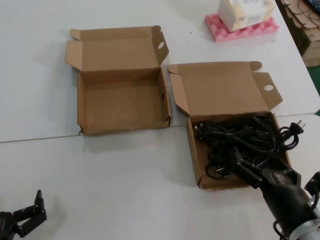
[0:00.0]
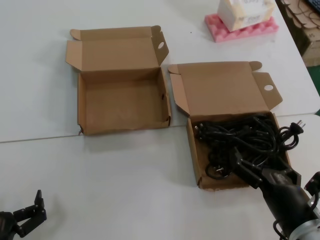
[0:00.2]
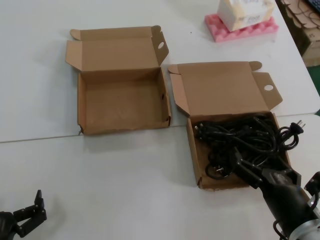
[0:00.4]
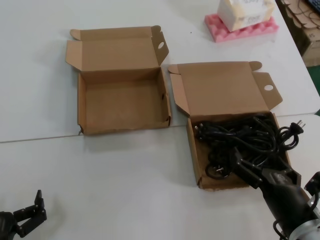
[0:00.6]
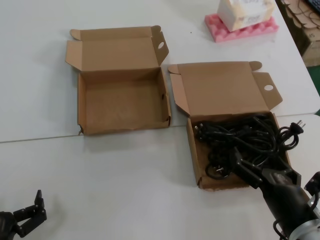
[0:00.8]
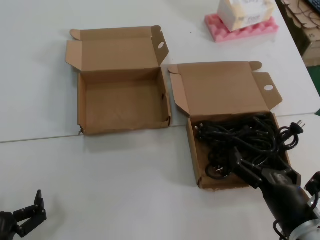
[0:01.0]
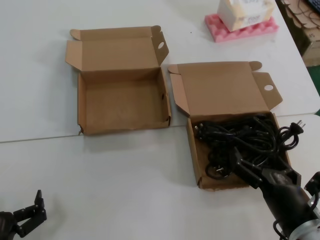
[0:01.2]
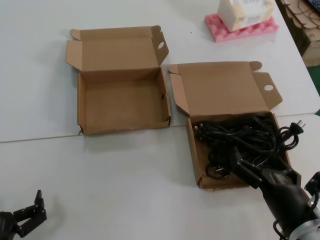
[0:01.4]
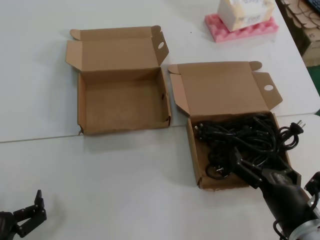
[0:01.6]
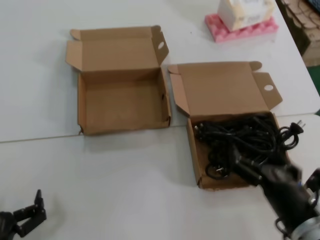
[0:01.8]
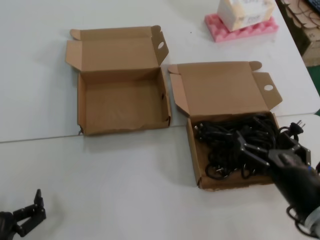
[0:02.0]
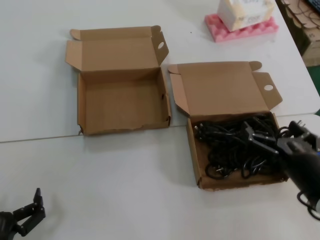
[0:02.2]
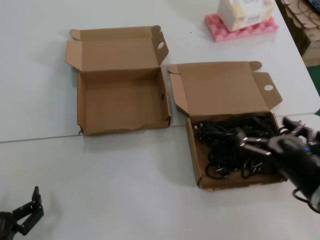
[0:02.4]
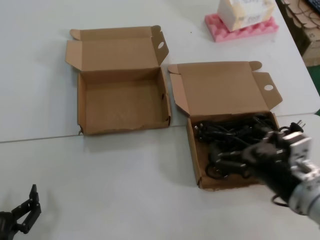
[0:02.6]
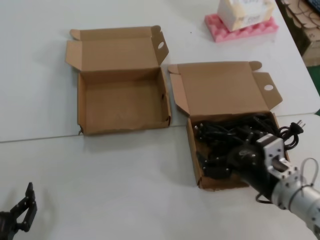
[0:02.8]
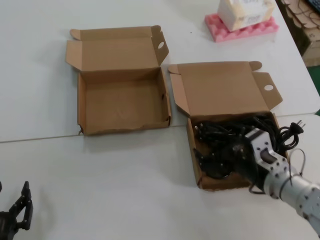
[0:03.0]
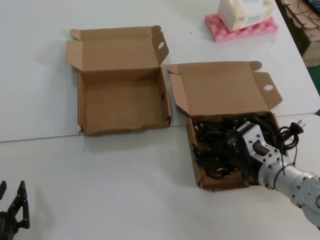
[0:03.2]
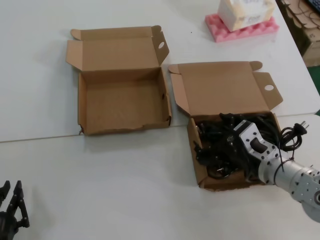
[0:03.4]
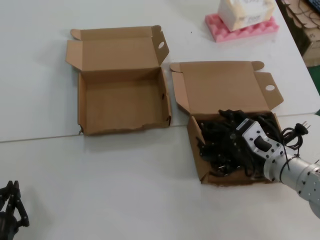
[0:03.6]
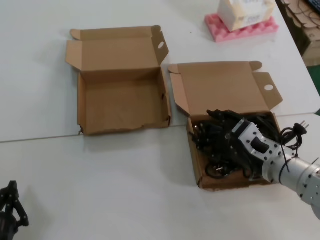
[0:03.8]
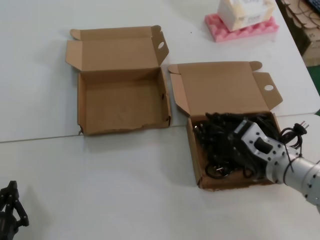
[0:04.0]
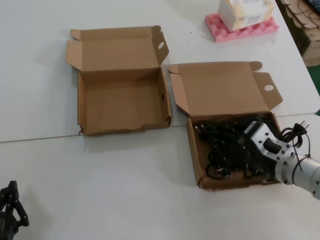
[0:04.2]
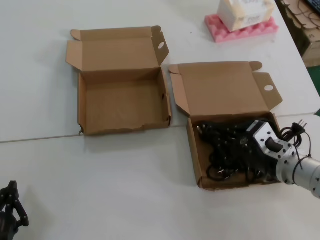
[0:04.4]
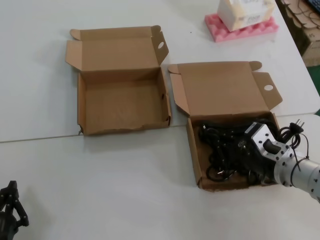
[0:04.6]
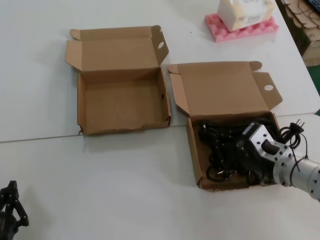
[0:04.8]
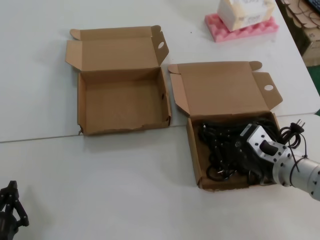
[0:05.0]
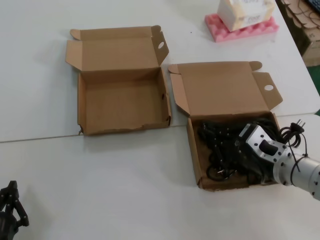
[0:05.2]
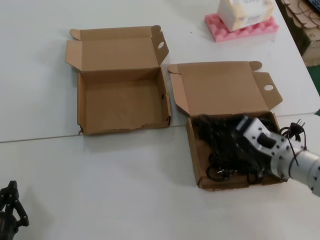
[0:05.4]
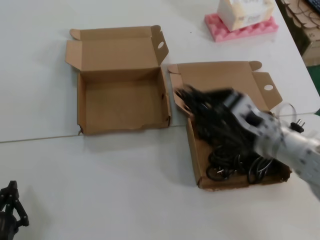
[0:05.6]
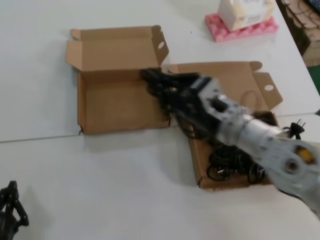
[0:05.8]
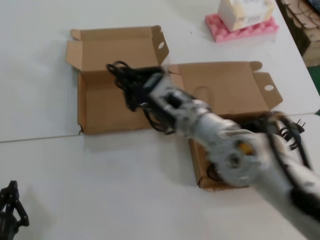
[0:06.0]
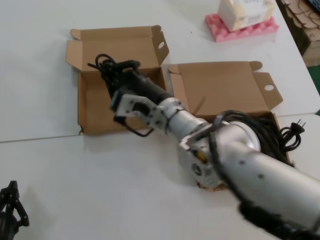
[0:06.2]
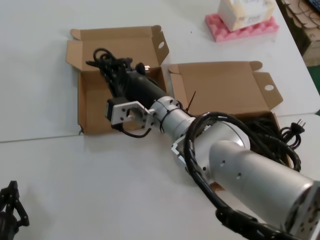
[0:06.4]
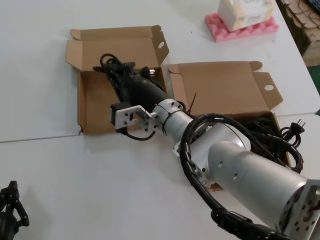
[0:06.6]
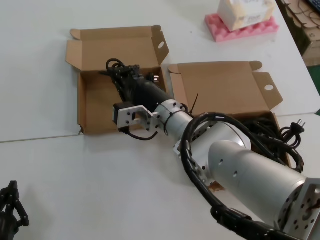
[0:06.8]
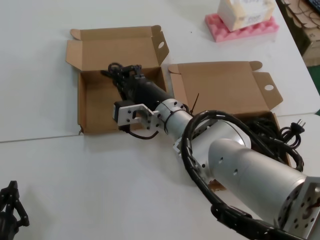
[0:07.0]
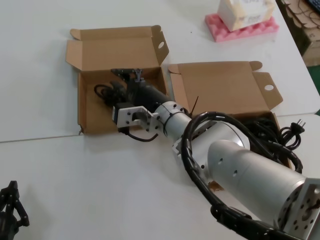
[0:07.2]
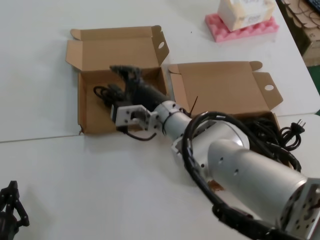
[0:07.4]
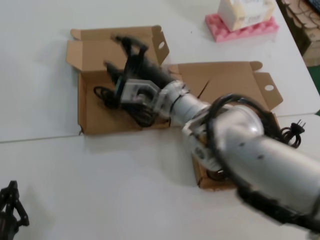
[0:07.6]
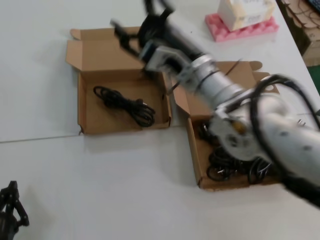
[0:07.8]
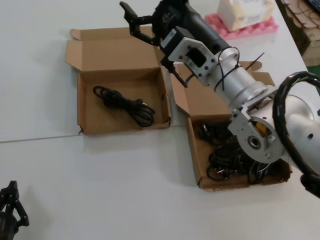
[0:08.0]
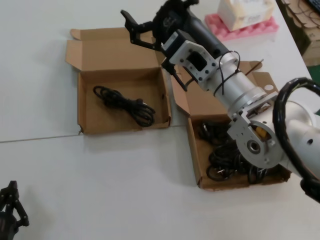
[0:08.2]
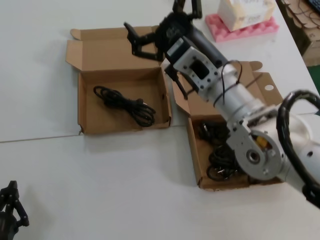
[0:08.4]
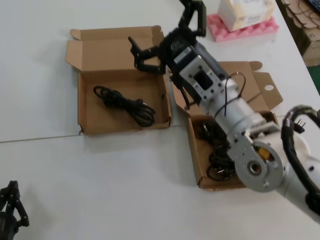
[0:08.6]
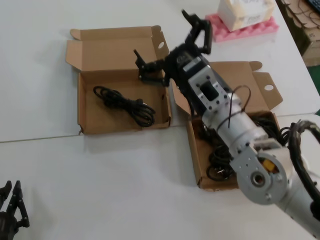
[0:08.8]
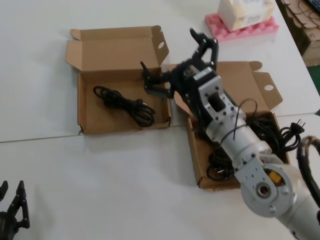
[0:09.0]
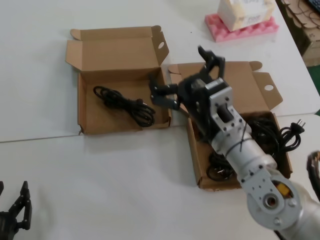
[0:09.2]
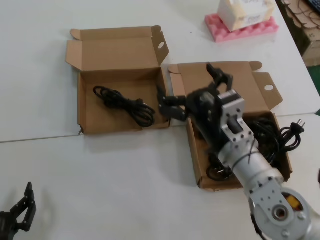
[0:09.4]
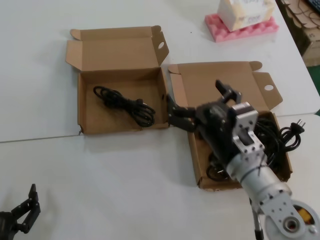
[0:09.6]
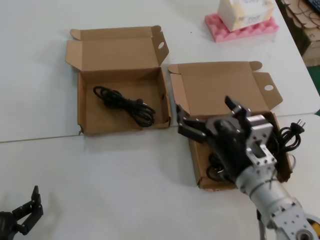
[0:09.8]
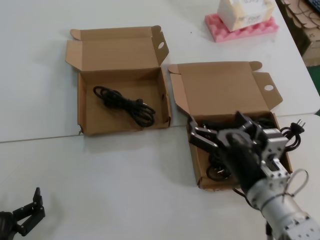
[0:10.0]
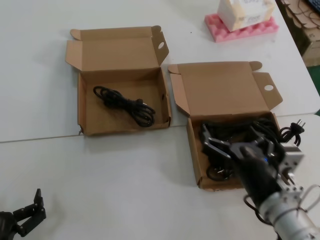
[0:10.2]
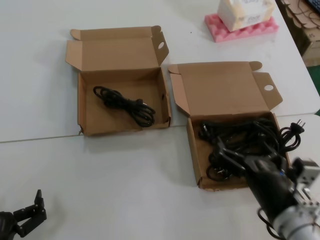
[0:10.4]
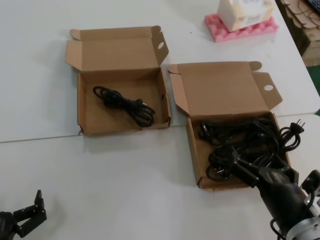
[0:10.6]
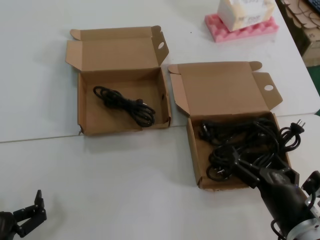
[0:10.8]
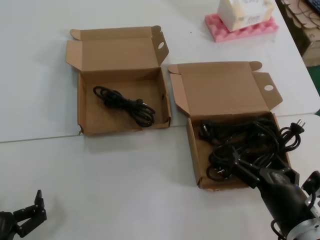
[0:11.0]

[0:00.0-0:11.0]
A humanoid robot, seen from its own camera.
Task of the whole recording: Pick up the power cord from the box containing it and place it in another box.
Step, 0:00.0 to 0:04.2: Grasp the data cable.
Step, 0:04.4 to 0:07.4: Place the data cable in the another box.
0:00.0 to 0:01.6: The two hands keep their place.
0:01.6 to 0:03.2: The right hand moves forward and upward, about 15 cm.
0:03.2 to 0:04.8: The hands make only small movements.
0:04.8 to 0:06.2: The right hand heads to the left, covering approximately 20 cm.
0:06.2 to 0:07.8: The right hand travels upward by roughly 5 cm.
0:07.8 to 0:09.4: The right hand goes approximately 15 cm downward and backward.
0:09.4 to 0:11.0: The right hand travels backward, downward and to the right by roughly 20 cm.
